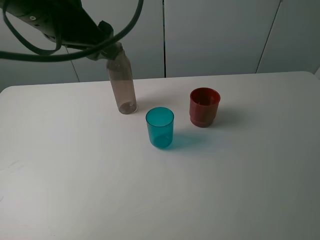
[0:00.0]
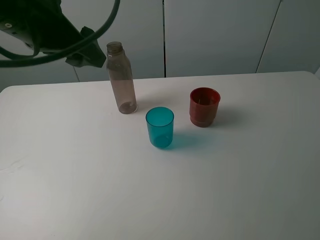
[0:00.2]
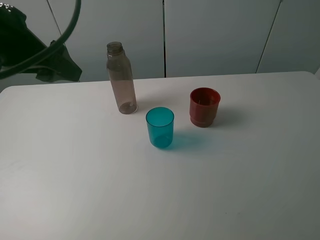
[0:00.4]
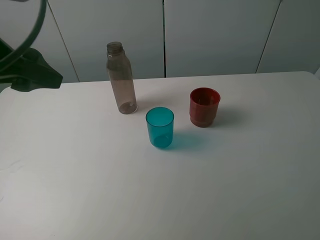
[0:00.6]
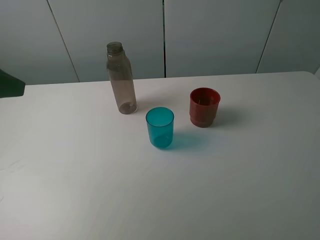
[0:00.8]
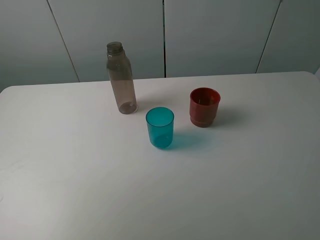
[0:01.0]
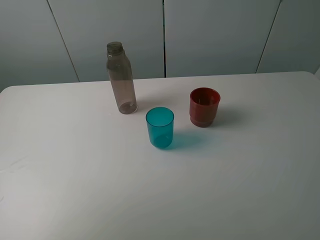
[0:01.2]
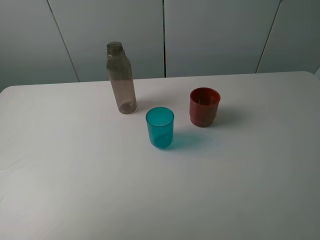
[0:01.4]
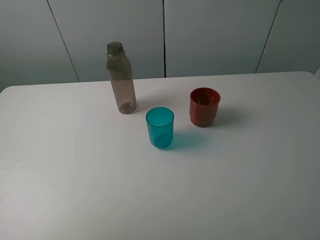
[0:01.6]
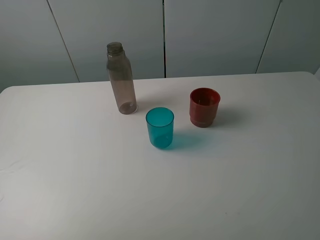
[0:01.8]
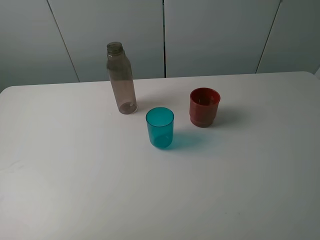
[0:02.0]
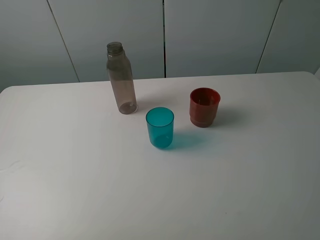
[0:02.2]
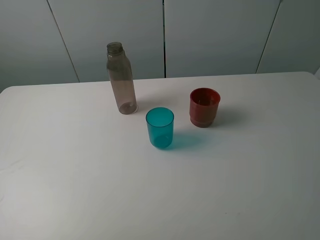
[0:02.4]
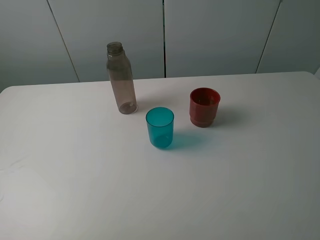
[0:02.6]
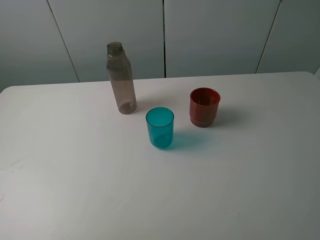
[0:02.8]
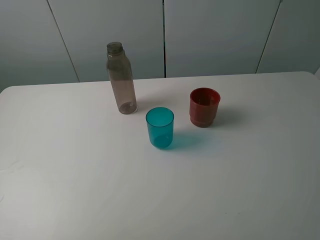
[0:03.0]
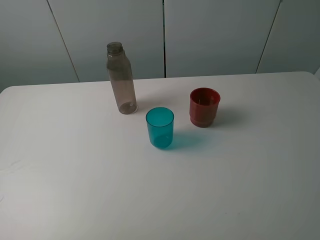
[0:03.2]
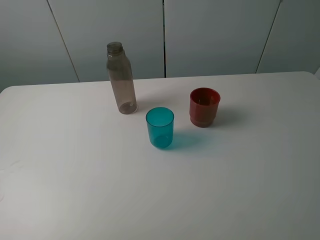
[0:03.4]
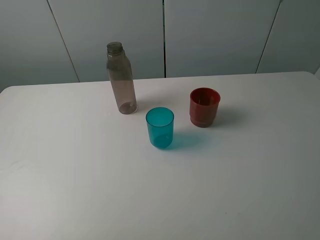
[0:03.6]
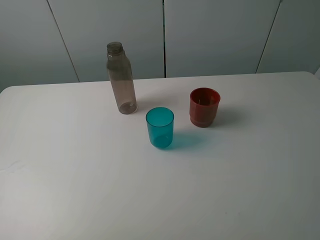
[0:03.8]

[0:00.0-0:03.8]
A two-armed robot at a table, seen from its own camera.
Task of the whole recording: pick up the bottle and pour water into the cup, then pick up the cup containing water and pour it into another cup.
0:00.0 to 0:01.2: The left gripper is displaced to the left and backward by approximately 25 cm.
0:02.6 to 0:03.8: The two grippers keep their place.
